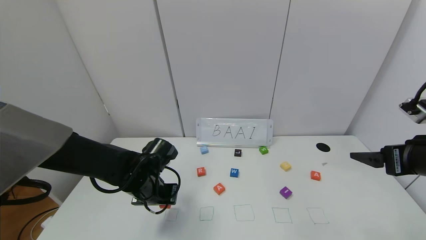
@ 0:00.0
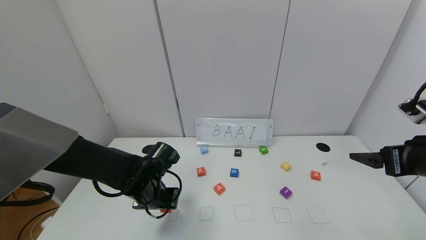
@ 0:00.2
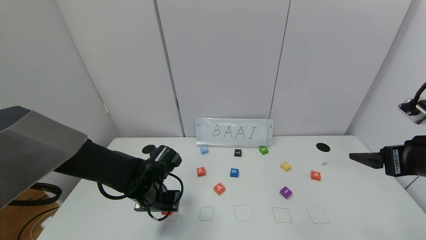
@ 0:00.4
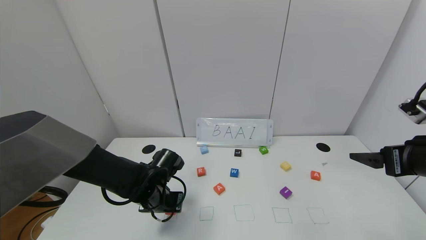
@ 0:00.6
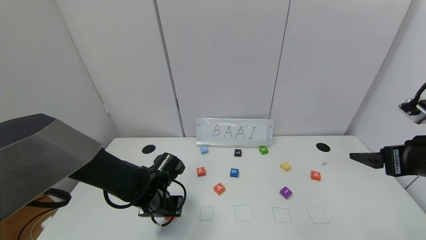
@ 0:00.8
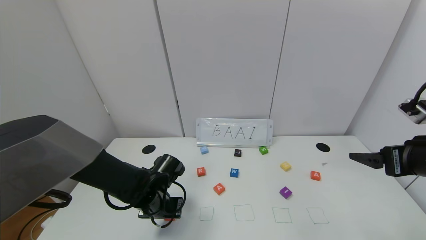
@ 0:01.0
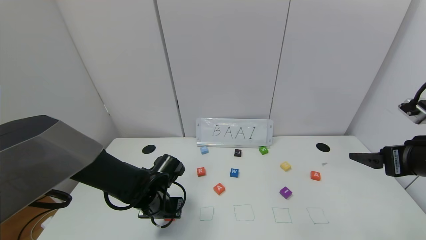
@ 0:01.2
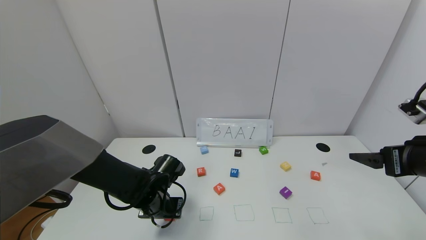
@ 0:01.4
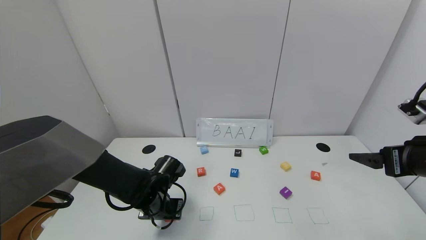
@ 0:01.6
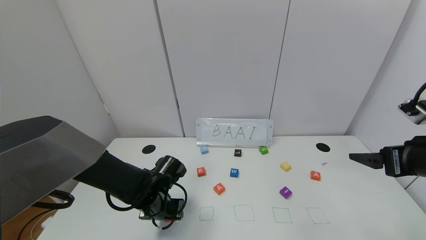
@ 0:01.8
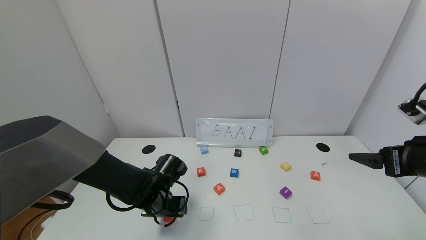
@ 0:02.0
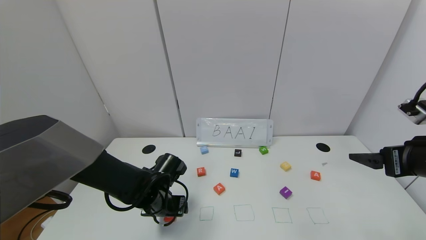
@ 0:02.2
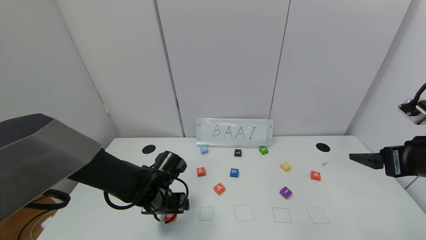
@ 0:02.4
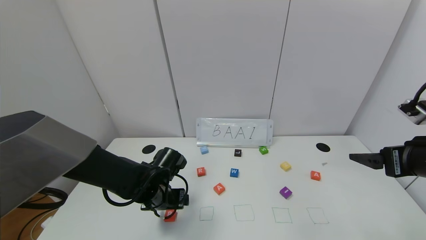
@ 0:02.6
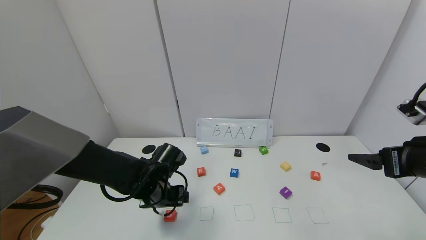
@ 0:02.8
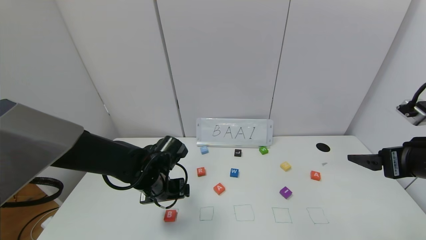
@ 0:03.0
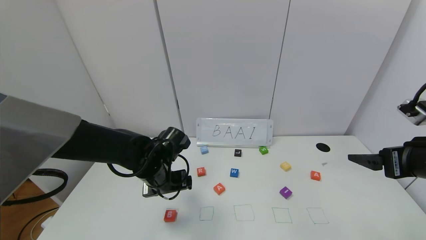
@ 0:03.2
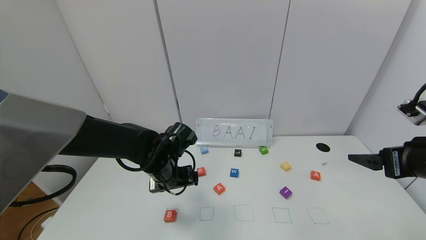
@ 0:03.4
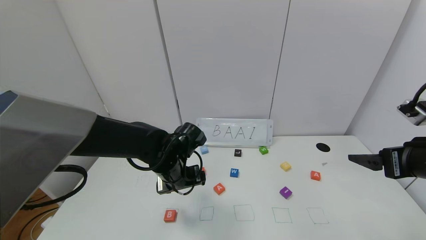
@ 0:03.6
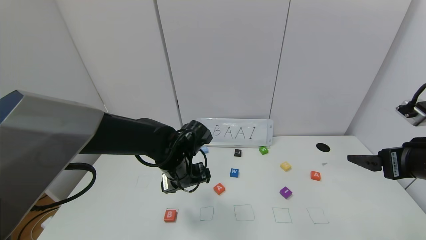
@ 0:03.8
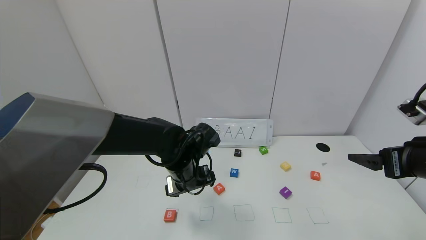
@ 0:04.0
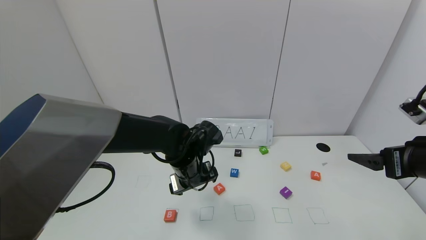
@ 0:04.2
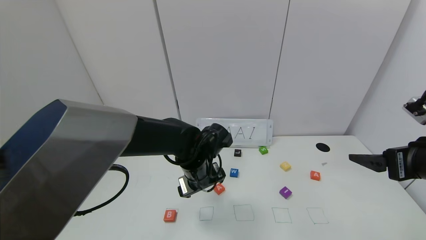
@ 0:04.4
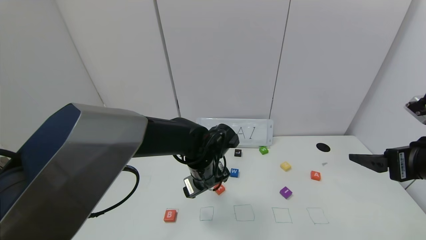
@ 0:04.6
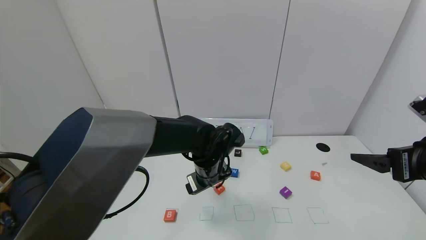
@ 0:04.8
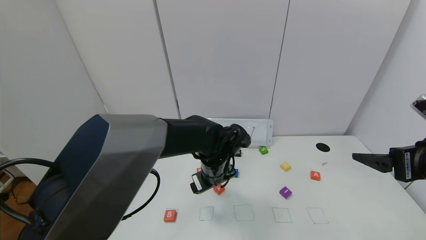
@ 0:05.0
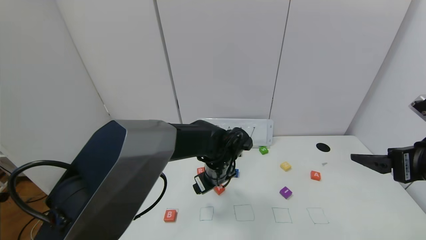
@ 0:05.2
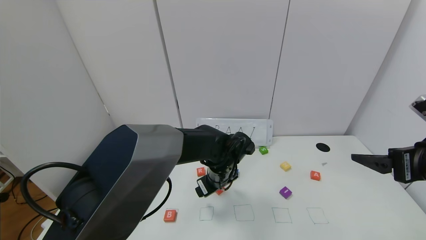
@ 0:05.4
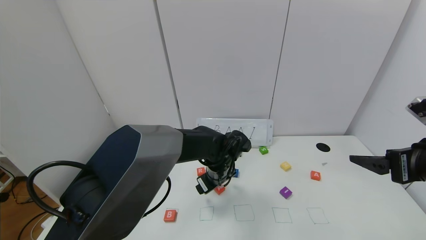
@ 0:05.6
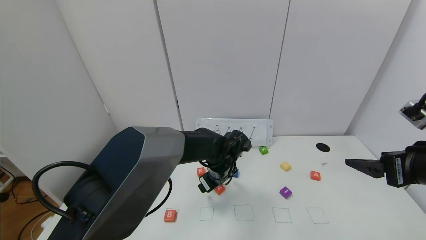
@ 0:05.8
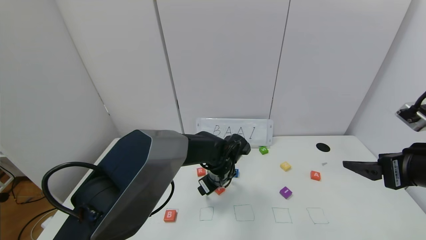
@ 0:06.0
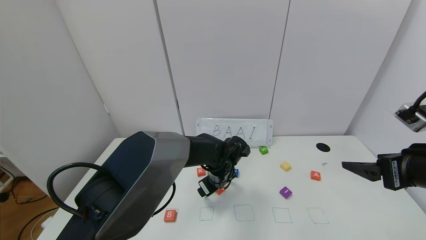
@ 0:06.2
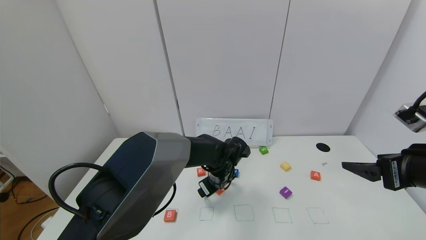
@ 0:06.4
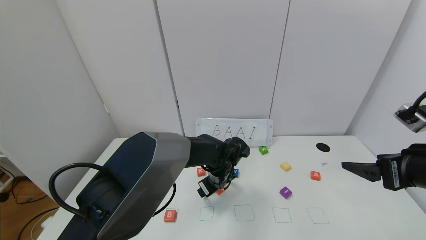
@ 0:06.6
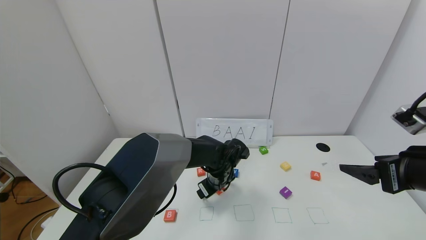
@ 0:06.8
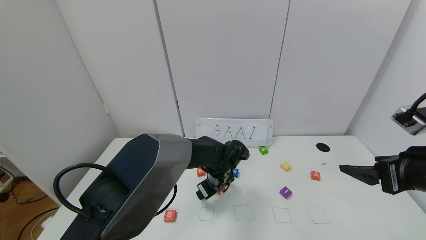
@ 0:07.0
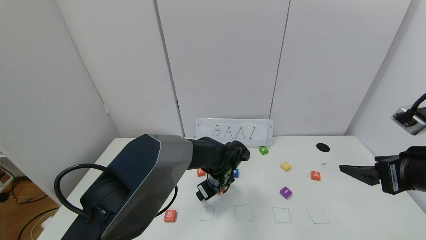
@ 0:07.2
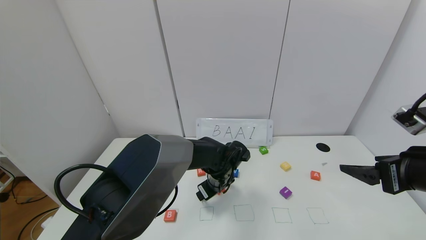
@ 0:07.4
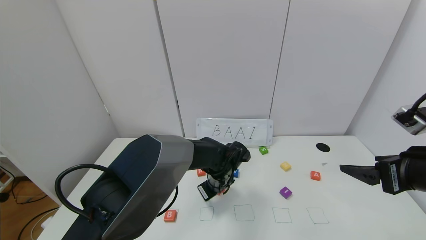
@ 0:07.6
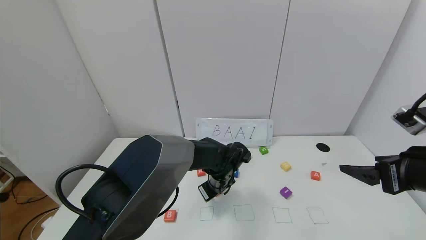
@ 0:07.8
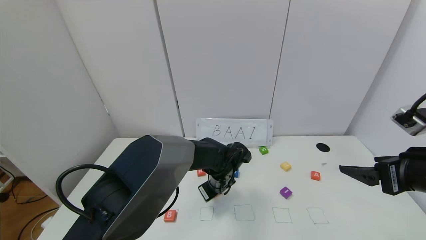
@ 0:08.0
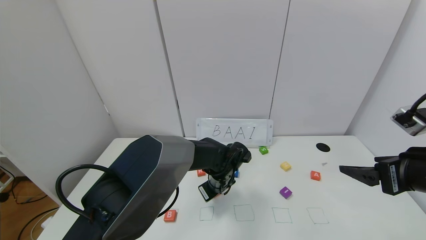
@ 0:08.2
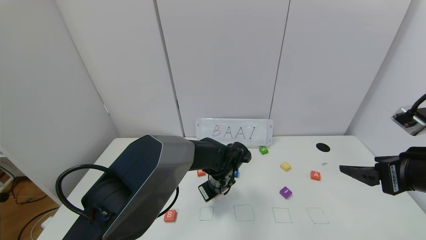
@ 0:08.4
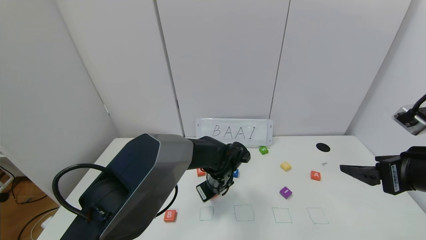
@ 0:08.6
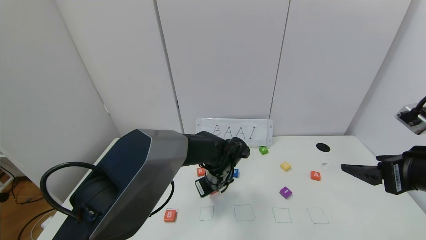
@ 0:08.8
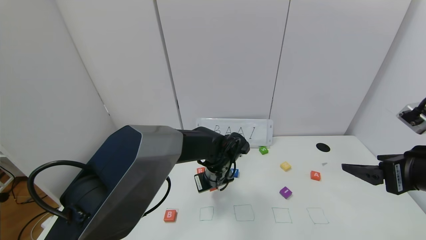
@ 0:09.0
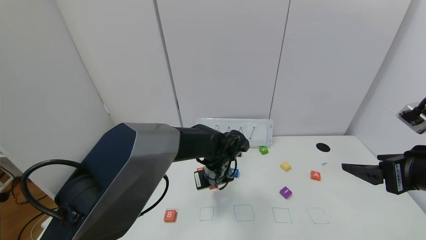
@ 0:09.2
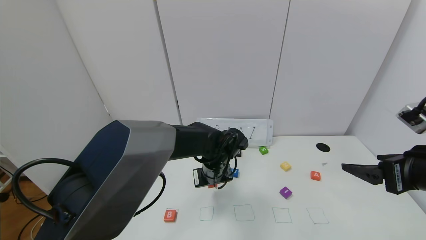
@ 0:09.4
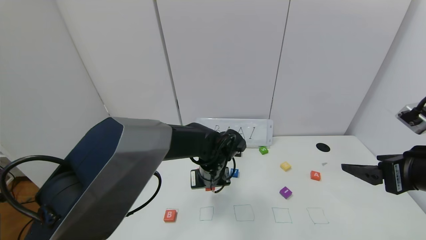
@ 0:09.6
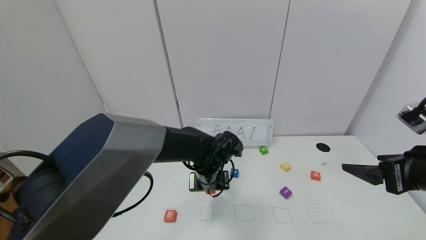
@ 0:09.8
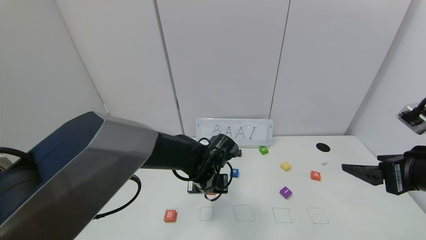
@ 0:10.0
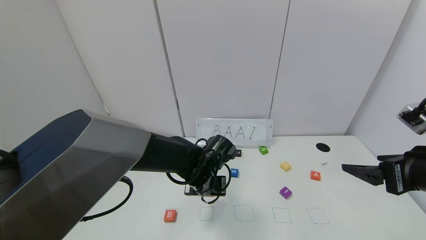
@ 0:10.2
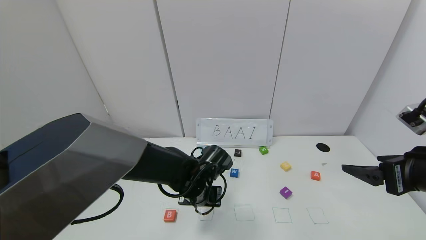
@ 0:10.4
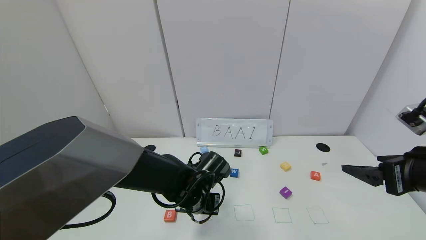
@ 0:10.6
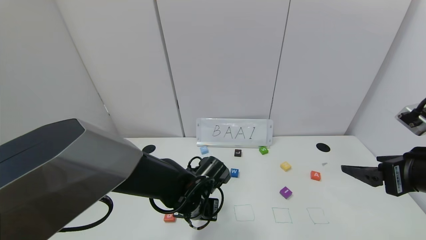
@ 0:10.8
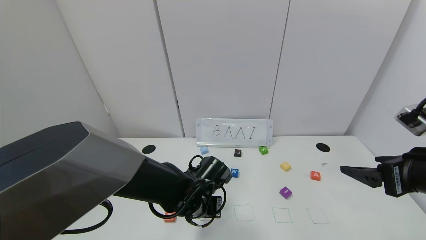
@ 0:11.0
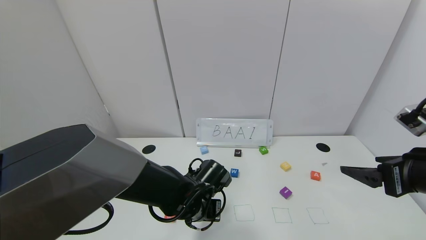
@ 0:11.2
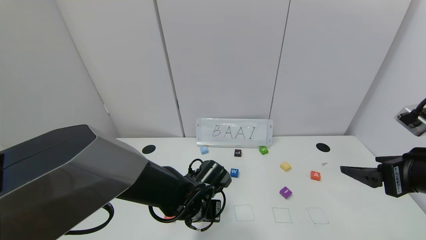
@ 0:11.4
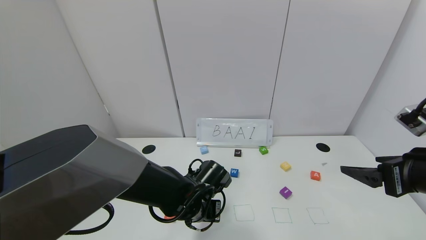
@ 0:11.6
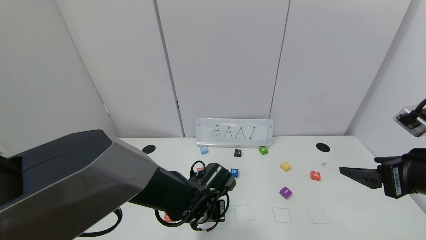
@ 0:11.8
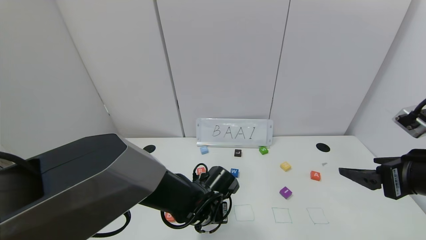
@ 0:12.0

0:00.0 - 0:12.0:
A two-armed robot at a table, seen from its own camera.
Task of the whole recording: use the gripper to find blocks with the letters b, a, a, and i on the table and arrange them into BAAI, then find r and N and turn the arranged baai into brian.
Step, 0:00.0 - 0:02.2: Place the block B in the first location.
0:00.0 - 0:01.6: The grippers stay close to where they were, moving slightly.
0:01.6 - 0:03.0: The left gripper moves upward, about 5 cm, and opens.
0:03.0 - 0:04.4: The left gripper travels to the right by some 10 cm.
0:04.4 - 0:06.0: The left gripper goes some 5 cm downward.
0:06.0 - 0:07.6: The left gripper closes up.
0:07.6 - 0:09.0: The left gripper closes.
0:09.0 - 0:10.4: The left gripper moves backward, roughly 5 cm.
0:10.4 - 0:12.0: The grippers move only a little.

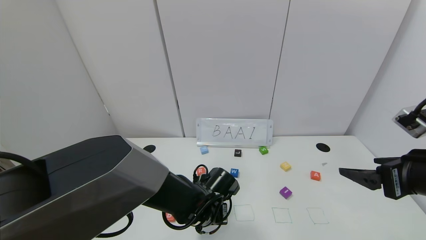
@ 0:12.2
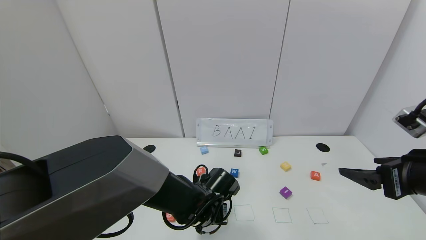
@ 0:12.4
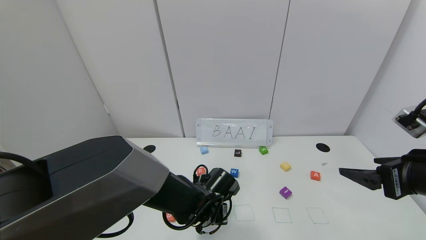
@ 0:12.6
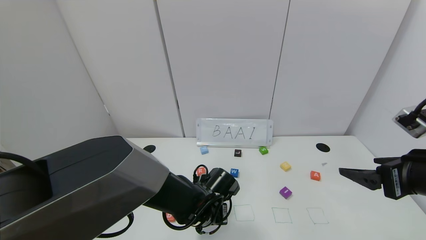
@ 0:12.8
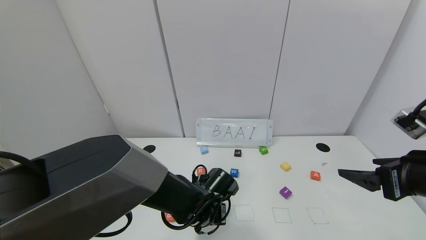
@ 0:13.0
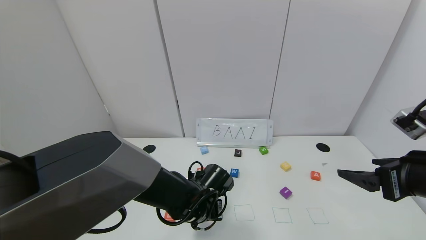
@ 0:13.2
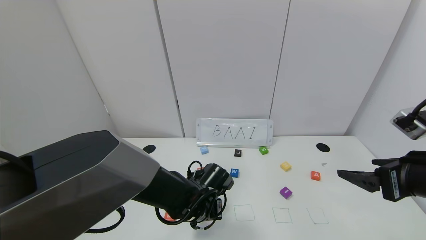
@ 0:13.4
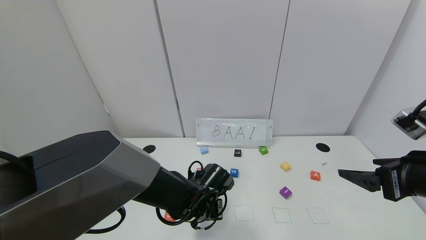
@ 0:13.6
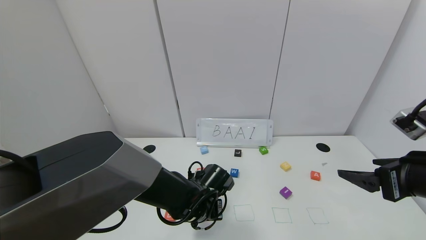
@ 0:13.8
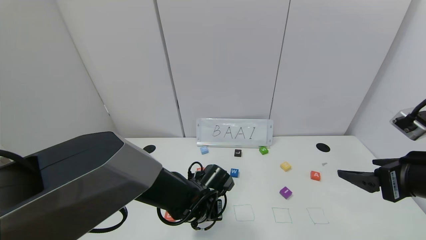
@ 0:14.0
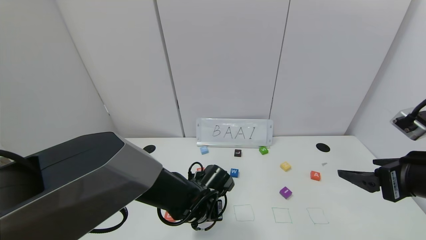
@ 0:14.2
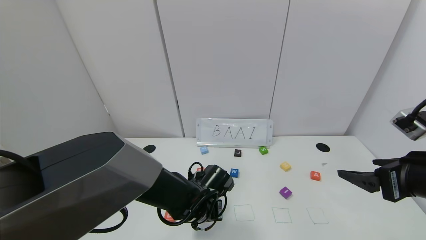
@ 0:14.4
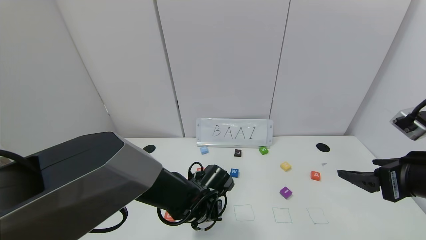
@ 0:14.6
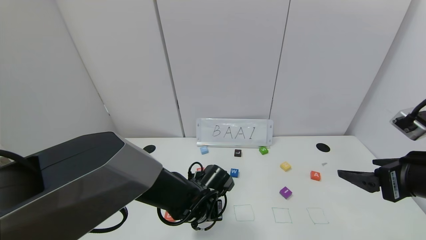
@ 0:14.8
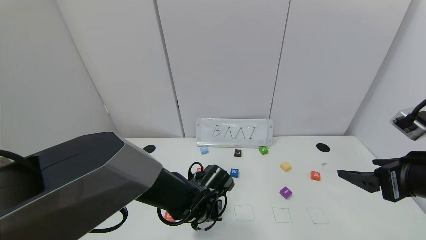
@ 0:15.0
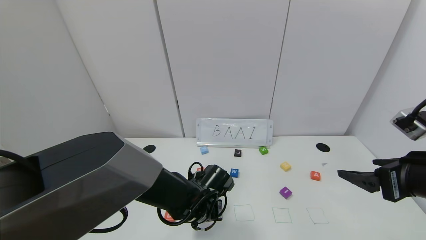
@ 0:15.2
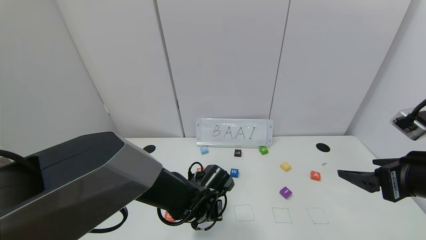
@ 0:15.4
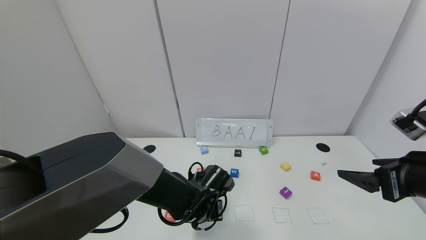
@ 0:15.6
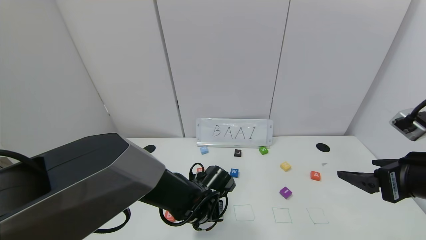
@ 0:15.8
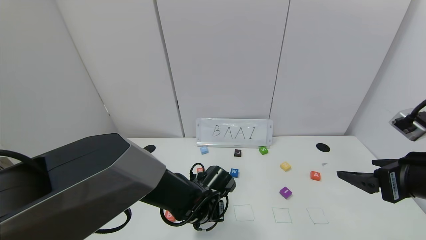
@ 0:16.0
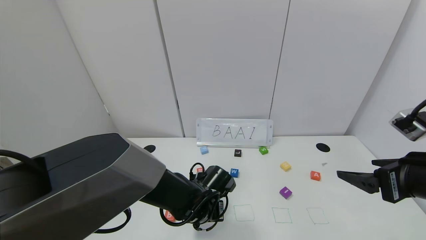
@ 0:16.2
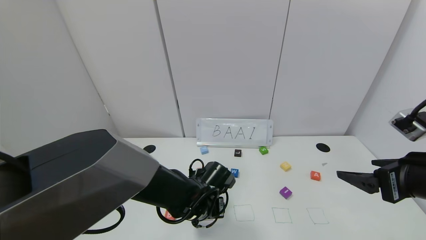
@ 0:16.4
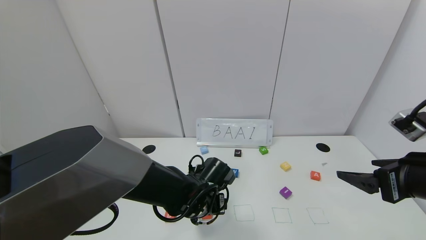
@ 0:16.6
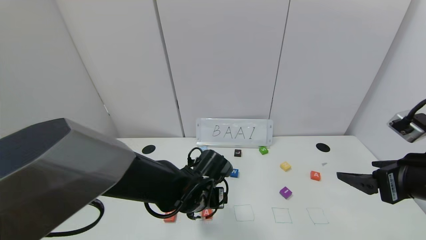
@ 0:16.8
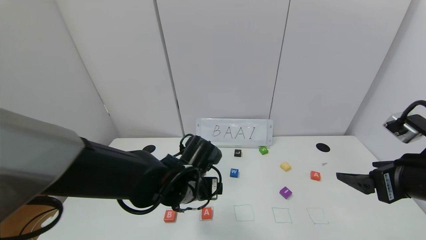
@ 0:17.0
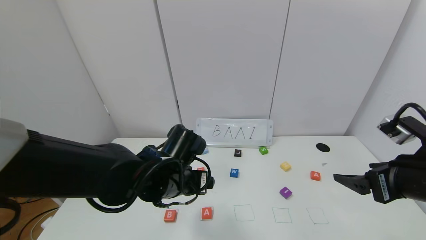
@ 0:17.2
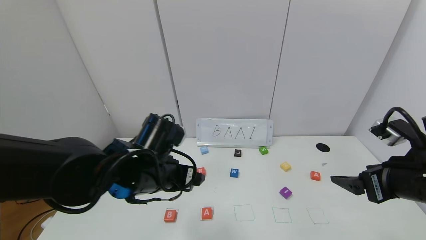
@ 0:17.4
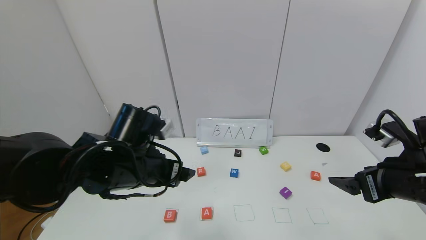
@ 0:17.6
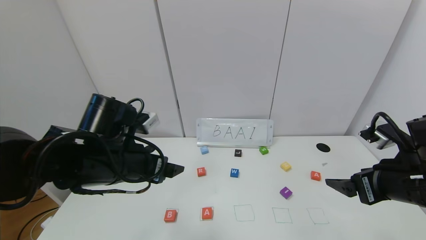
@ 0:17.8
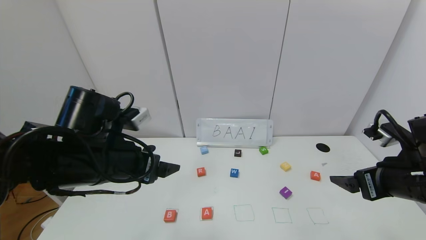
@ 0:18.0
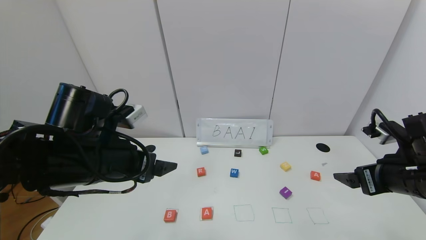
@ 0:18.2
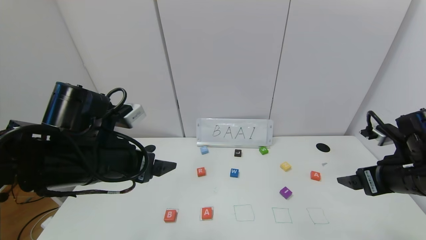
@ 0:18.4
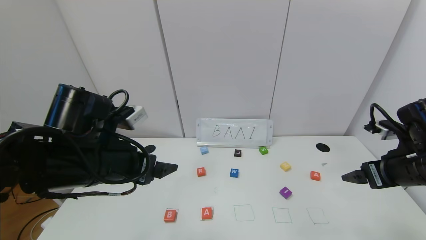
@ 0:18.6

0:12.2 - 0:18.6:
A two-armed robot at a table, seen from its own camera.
Task of the whole recording: use the gripper to find blocks with the letters b, a, a, and i on the table and arrange them into BAAI, then find r and N and turn the arranged baai into brian.
Step, 0:12.2 - 0:16.6: Place the first block A in the second location.
0:12.2 - 0:13.8: The grippers make only small movements.
0:13.8 - 0:15.4: Neither gripper changes place.
0:15.4 - 0:17.0: The left gripper shifts some 10 cm upward, and opens.
0:17.0 - 0:18.6: The right gripper shifts approximately 5 cm forward, while the left gripper moves to the left and upward, approximately 15 cm.
